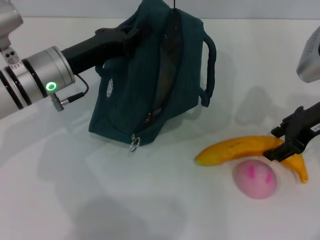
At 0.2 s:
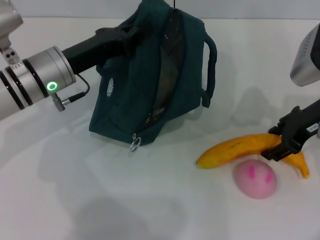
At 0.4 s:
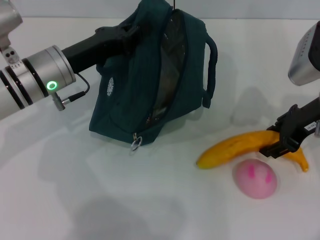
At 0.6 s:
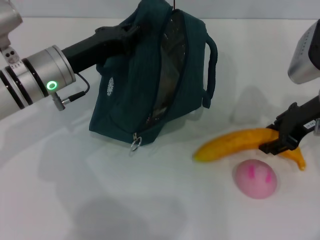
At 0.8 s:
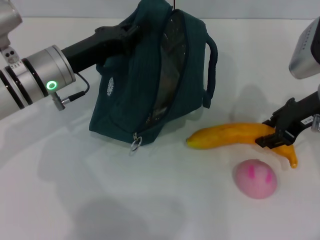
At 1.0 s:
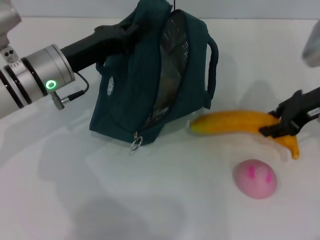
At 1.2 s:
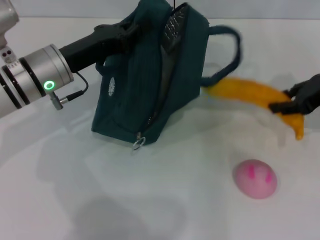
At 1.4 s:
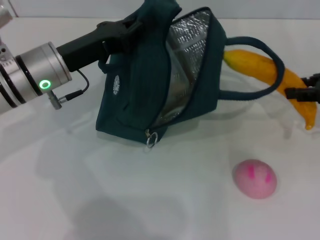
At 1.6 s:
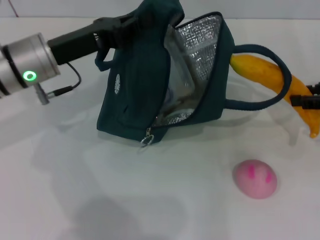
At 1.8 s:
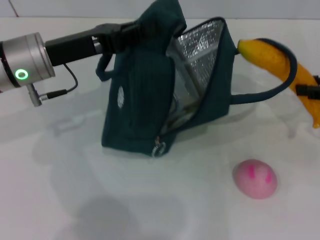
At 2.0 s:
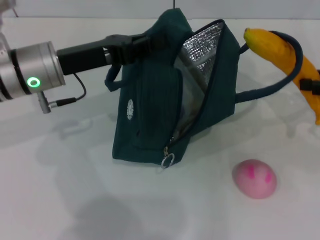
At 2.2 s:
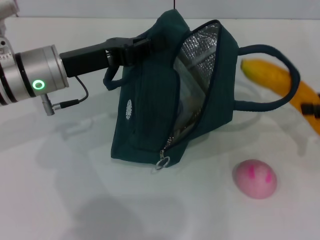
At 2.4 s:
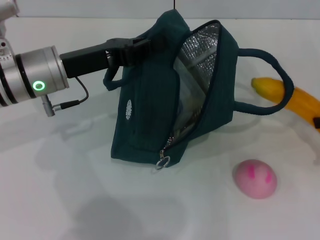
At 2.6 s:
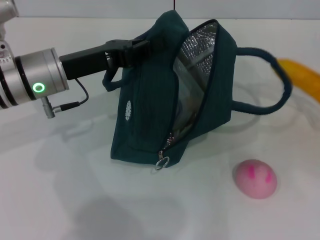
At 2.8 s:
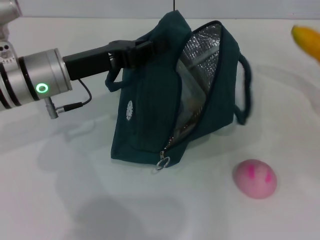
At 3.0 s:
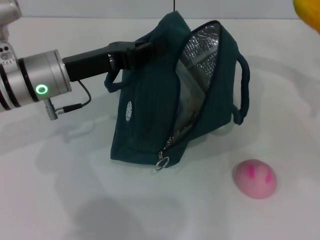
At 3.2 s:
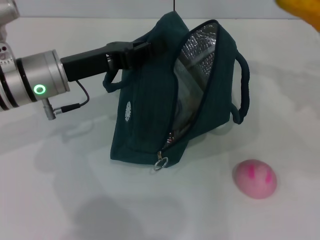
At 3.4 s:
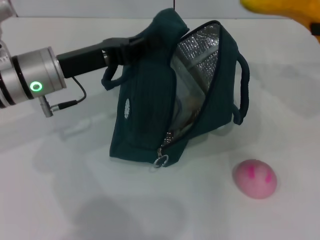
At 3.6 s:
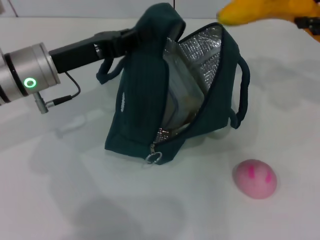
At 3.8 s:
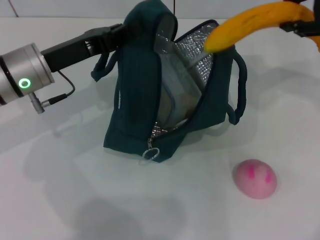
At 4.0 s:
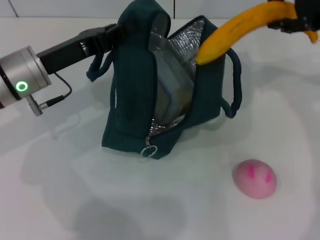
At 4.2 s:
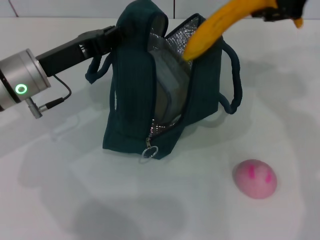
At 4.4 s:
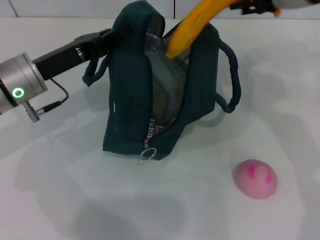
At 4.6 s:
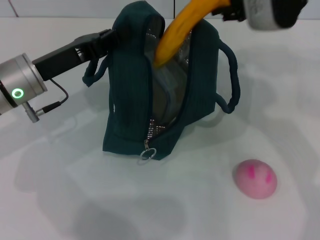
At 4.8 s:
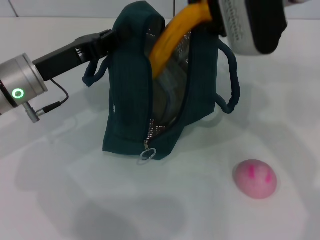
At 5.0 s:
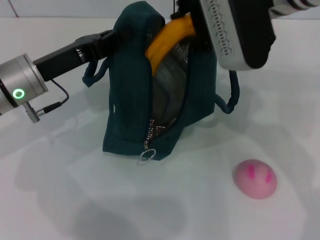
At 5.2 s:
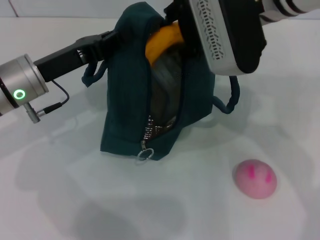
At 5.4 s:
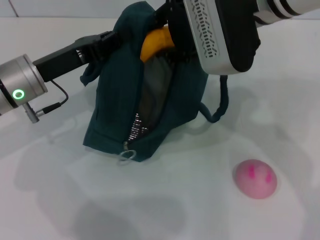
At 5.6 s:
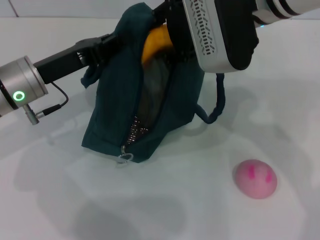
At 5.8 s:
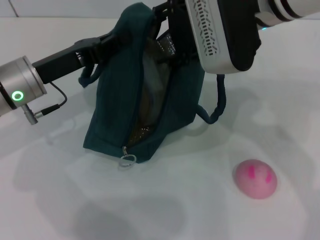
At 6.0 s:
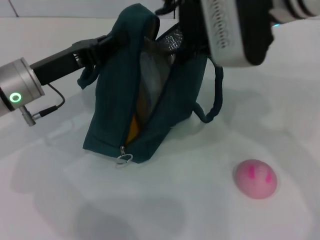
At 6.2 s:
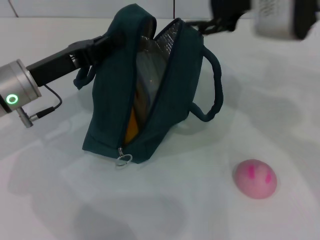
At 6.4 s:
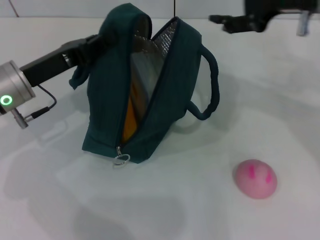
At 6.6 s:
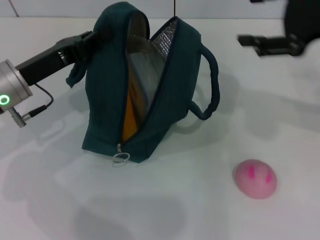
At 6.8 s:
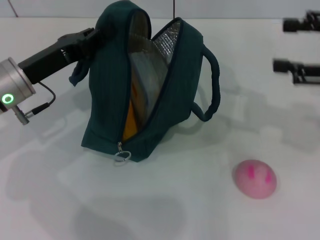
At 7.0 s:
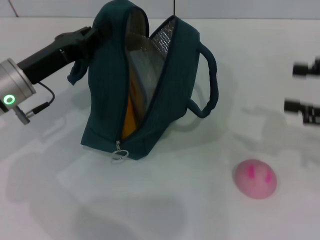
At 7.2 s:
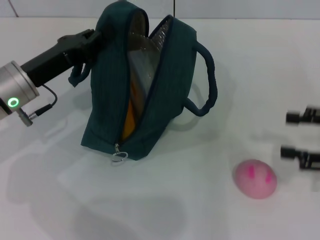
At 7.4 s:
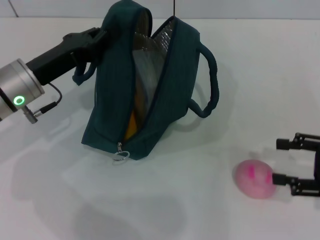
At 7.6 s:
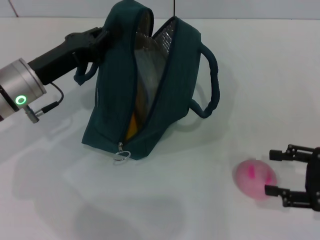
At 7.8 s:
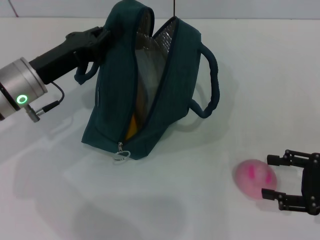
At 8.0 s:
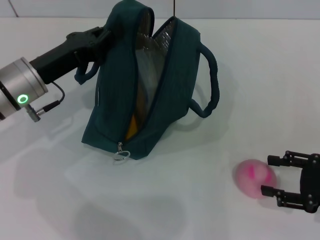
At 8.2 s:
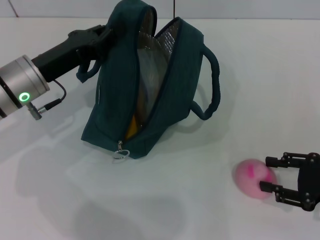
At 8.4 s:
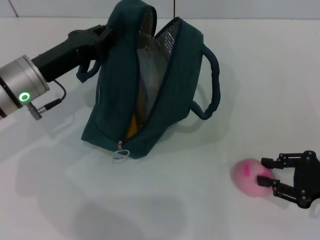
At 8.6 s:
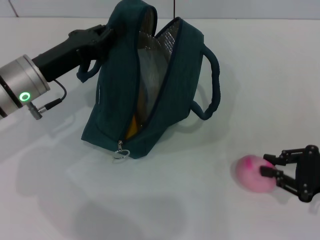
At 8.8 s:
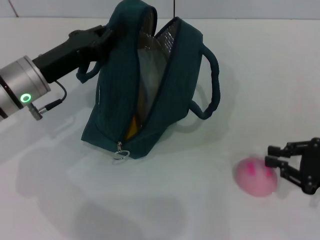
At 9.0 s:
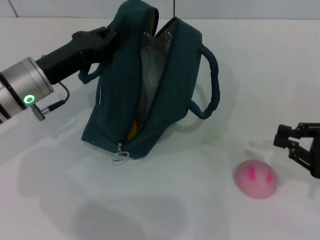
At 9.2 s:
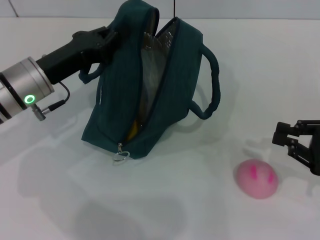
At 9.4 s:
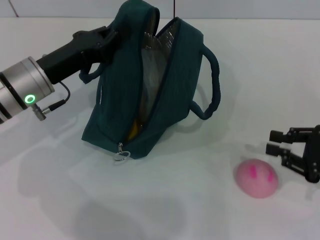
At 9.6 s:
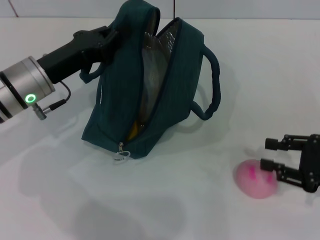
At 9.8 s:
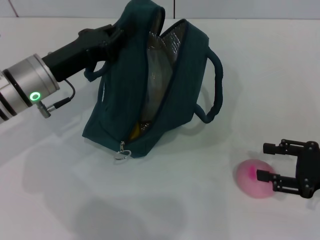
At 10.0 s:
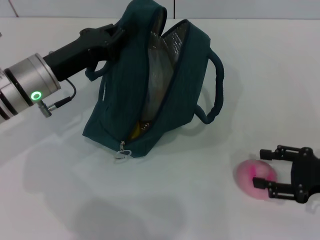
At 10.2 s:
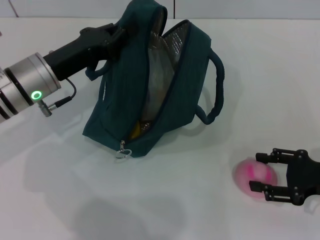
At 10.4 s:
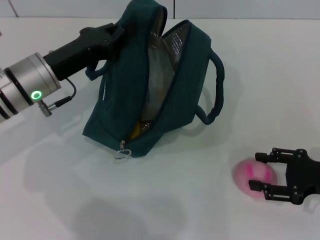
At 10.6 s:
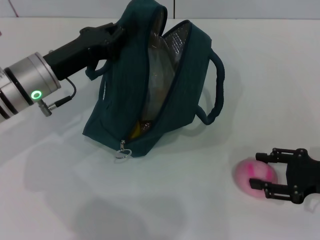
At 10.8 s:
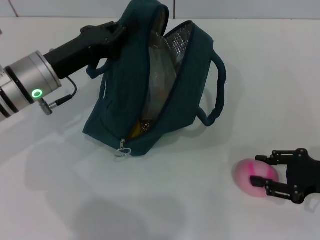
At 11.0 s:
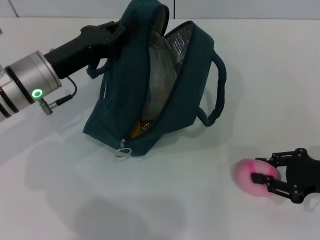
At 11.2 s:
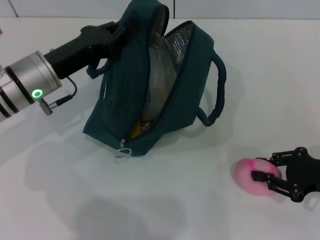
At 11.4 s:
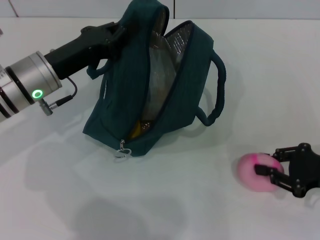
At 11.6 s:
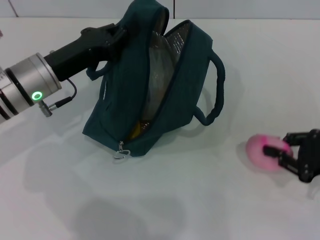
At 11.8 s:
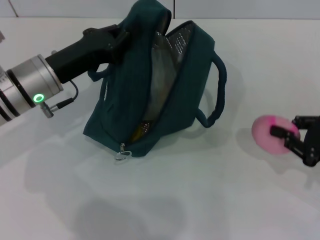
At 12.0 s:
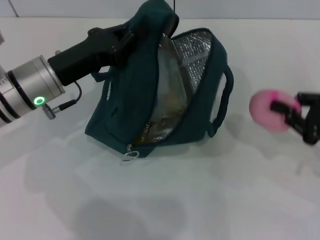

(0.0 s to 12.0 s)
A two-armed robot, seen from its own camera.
Step, 0.6 s - 5.8 s: Put the banana into the lunch bag with your right hand.
Step, 6.0 s - 10.8 s: Grab the peach with your right hand.
0.0 s - 1.6 s: The right gripper travels to the right by about 10 cm.
1.6 s - 3.0 s: The right gripper travels to the right by approximately 5 cm.
3.0 s - 4.4 s: The right gripper is displaced to the left and upward by about 25 cm.
4.4 s - 6.0 s: The right gripper is displaced to the left by some 5 cm.
6.0 s - 7.6 s: The right gripper heads to the right, downward and backward, covering about 30 cm.
7.6 s - 9.0 s: The right gripper closes up.
9.0 s - 10.4 s: The right gripper opens.
10.4 s - 12.0 s: The right gripper closes up.

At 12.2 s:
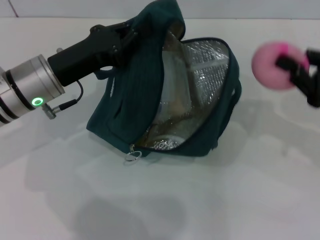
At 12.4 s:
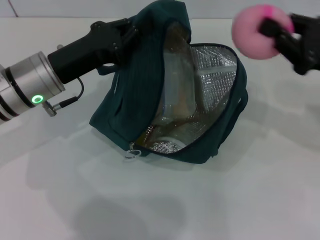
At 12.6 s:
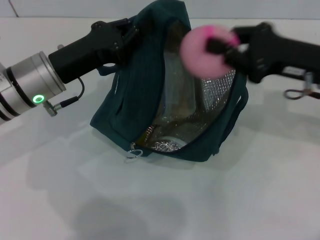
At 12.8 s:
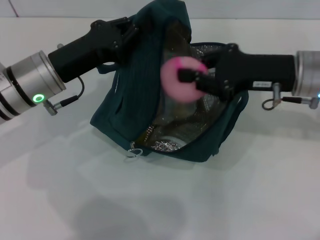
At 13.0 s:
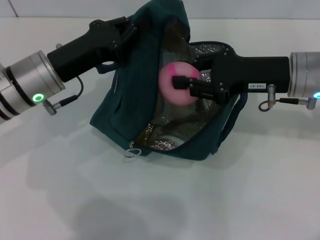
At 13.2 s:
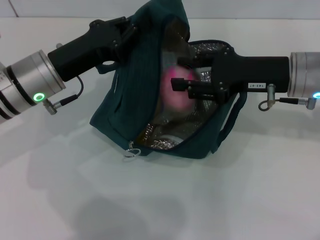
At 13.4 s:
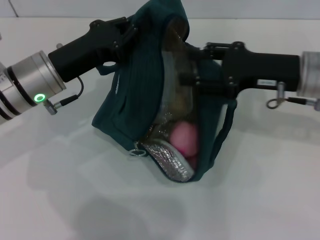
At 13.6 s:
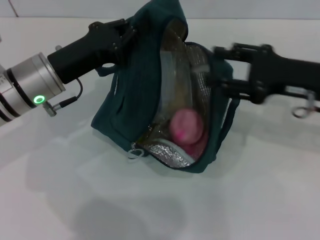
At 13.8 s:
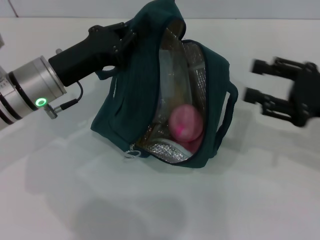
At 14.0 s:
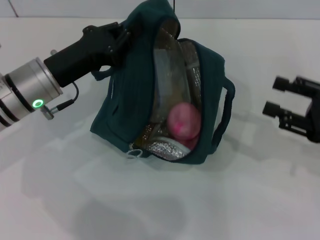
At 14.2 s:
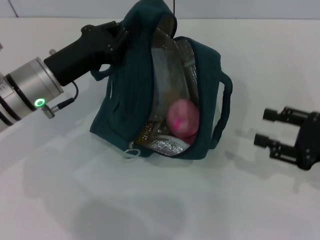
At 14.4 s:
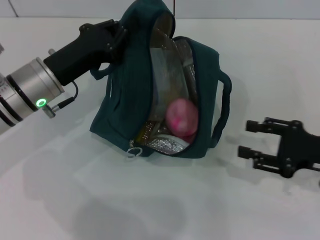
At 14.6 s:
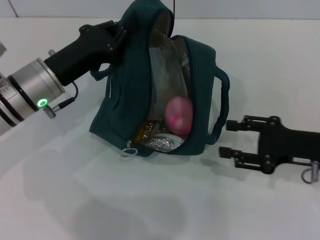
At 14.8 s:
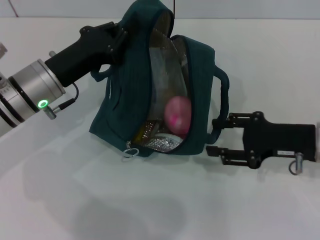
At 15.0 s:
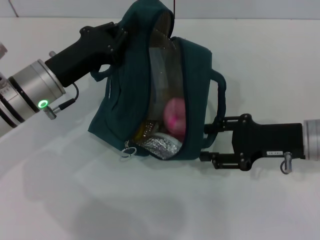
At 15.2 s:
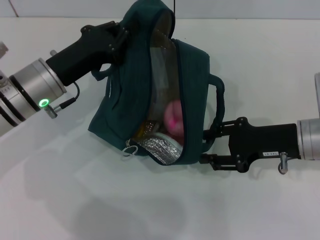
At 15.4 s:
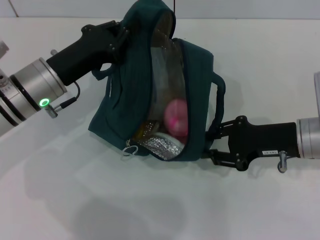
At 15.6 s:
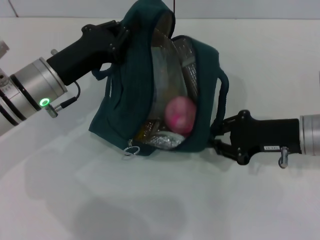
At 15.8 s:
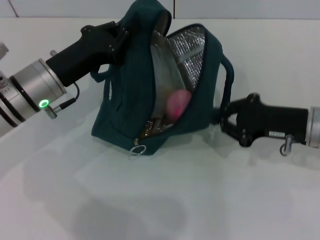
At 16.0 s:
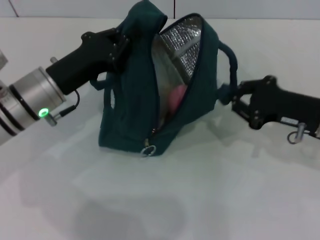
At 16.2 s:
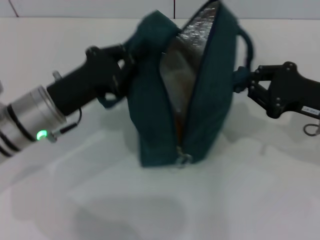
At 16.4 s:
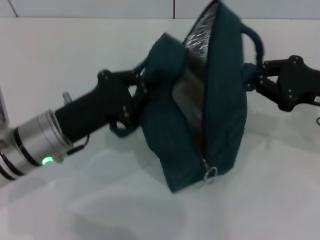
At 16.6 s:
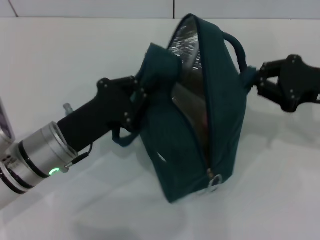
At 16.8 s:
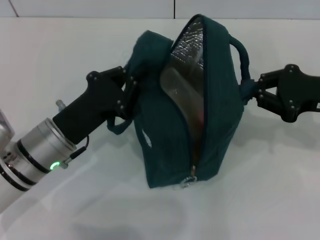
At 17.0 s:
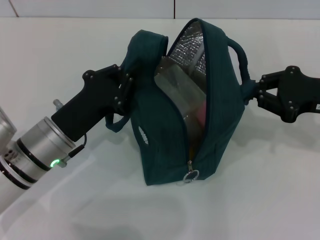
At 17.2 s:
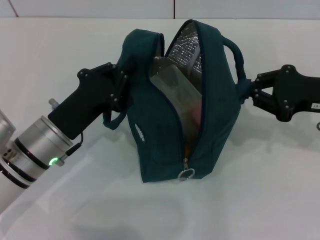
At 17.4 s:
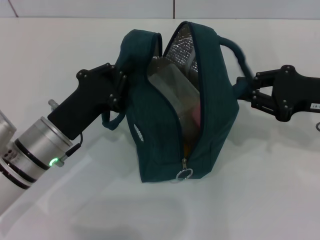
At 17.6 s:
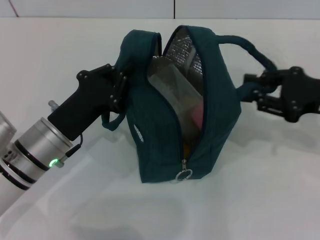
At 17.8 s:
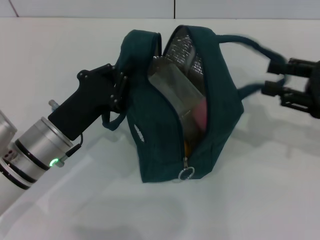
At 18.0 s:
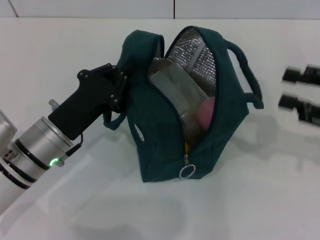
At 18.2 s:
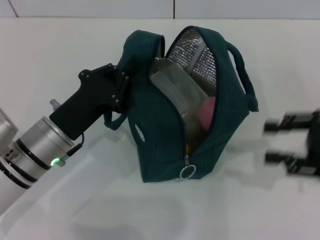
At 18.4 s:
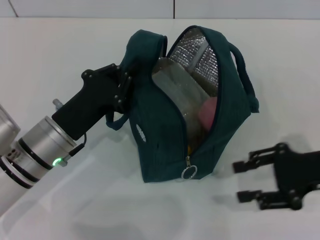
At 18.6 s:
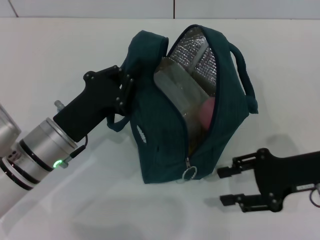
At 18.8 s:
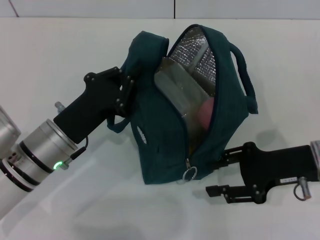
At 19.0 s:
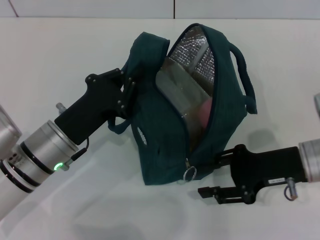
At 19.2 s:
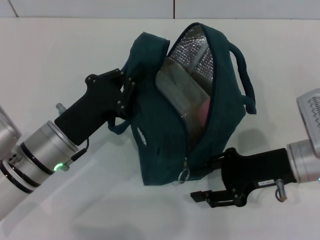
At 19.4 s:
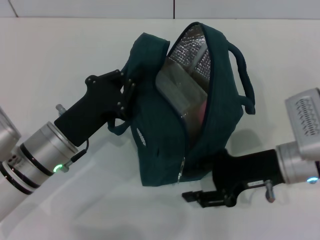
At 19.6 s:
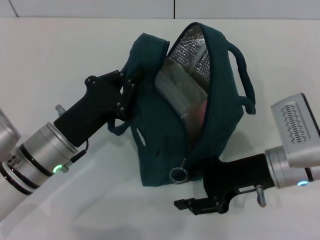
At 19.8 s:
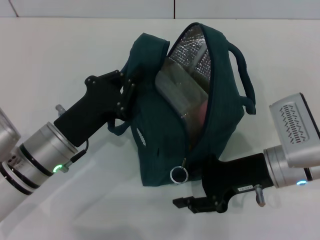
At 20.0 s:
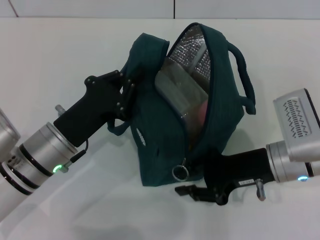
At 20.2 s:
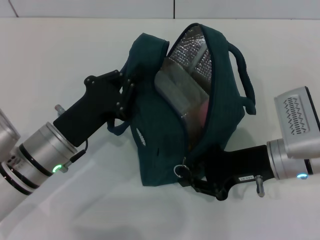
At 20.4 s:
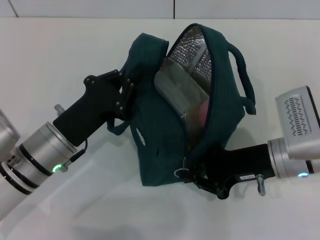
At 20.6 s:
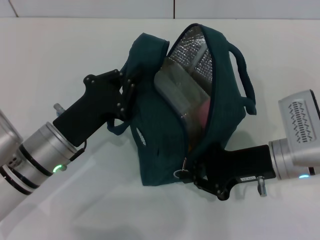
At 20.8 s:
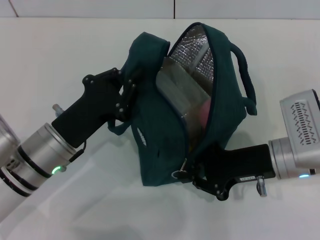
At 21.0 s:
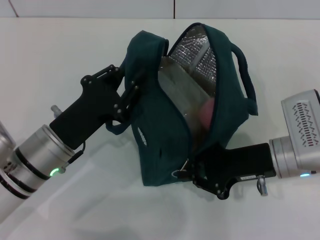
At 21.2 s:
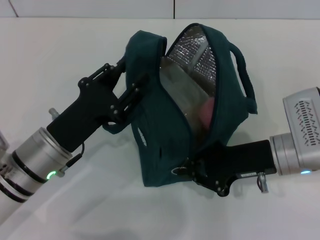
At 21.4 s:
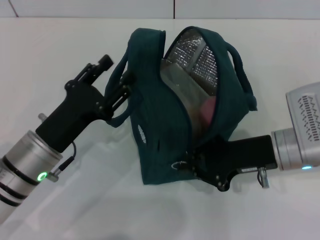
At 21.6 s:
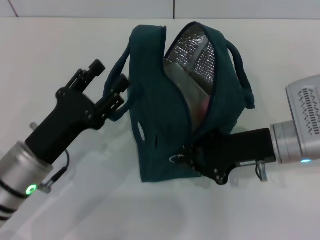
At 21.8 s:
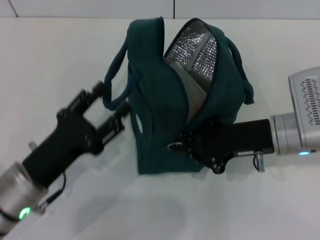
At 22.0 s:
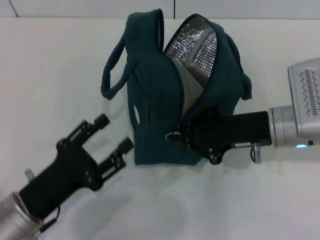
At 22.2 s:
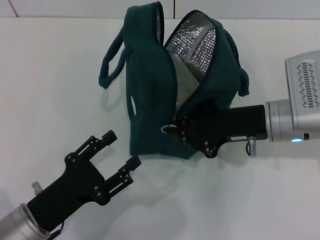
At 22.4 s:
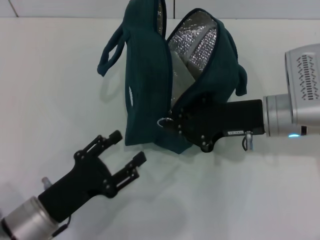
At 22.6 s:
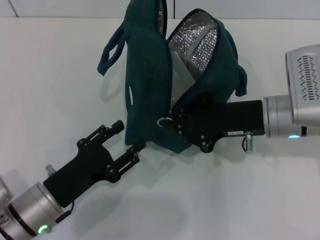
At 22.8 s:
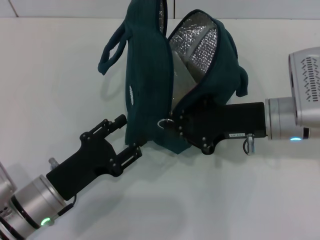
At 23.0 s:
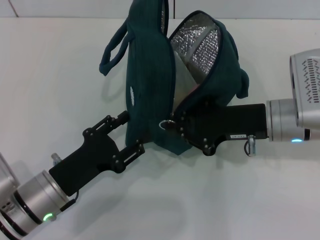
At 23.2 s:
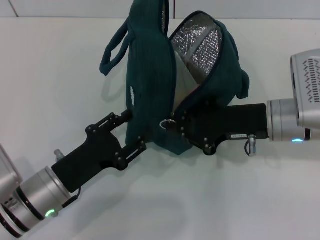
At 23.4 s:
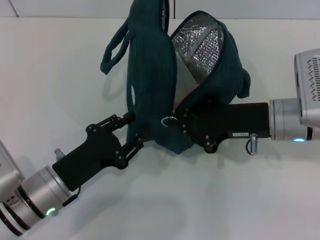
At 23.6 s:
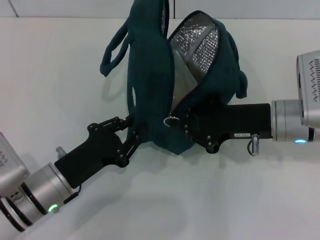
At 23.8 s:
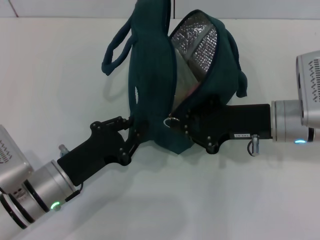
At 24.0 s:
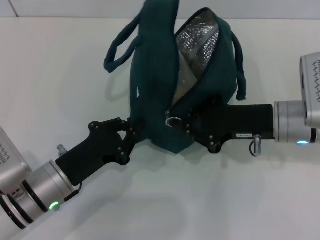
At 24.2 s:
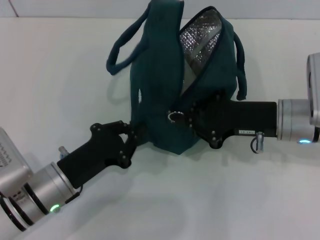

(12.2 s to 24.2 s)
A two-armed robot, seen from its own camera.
Step, 13.6 s - 17.6 s: Hold the lunch bag with your right hand.
12.2 s - 13.8 s: The right gripper reaches approximately 10 cm to the left, then returns, and opens up.
13.8 s - 15.2 s: The right gripper moves to the left and downward, some 10 cm.
15.2 s - 16.6 s: The left gripper is displaced backward by roughly 10 cm; the right gripper shifts about 10 cm to the right and upward, and closes up.
16.6 s - 18.2 s: The right gripper is displaced backward by about 5 cm, and opens.
18.2 s - 19.8 s: The right gripper travels to the left and downward by about 15 cm.
19.8 s - 21.2 s: The left gripper opens up. Meanwhile the right gripper closes its fingers.
21.2 s - 22.6 s: The left gripper shifts approximately 5 cm backward, and opens.
22.6 s - 24.2 s: The left gripper closes up.
